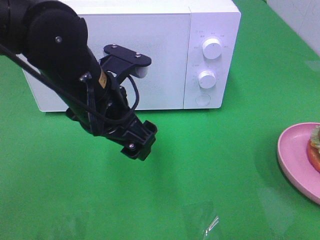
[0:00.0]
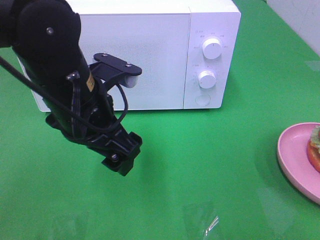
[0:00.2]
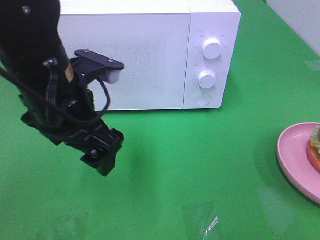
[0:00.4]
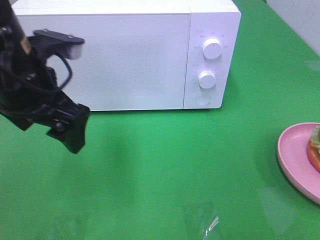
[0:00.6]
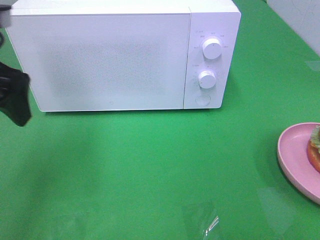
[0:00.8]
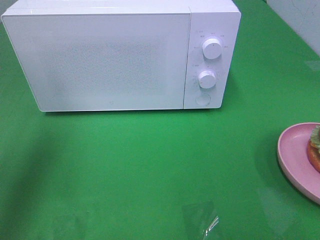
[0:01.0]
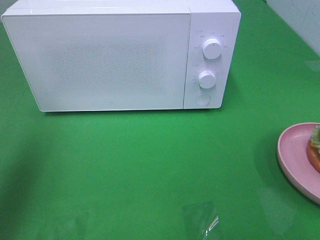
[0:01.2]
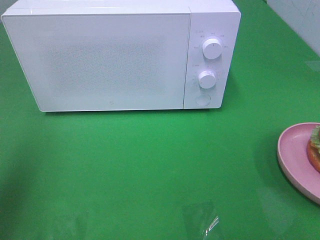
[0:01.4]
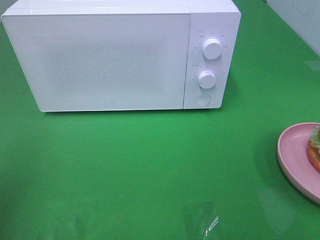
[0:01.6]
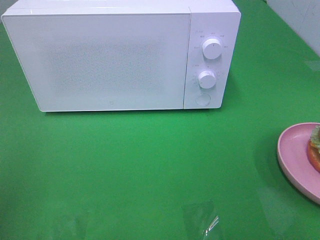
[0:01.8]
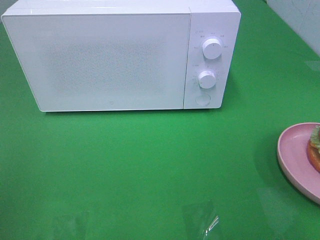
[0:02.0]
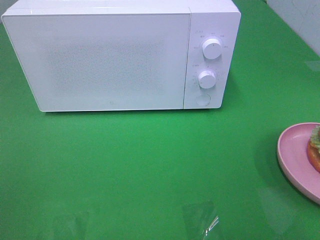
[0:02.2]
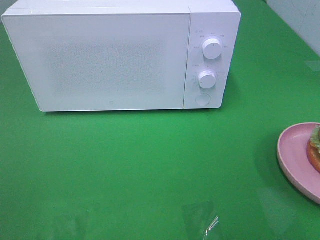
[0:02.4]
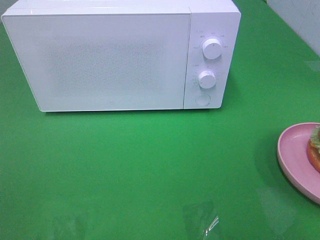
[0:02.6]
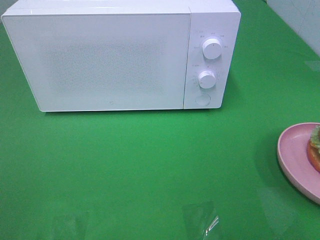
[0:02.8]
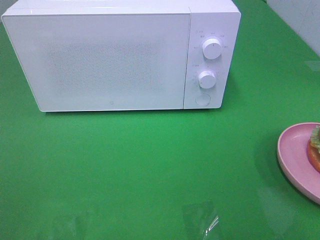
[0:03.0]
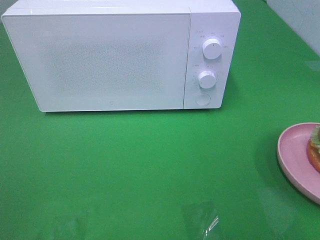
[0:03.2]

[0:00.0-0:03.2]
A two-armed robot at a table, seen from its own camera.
Task of the whole recording: Heat the burger.
0:00.0 to 0:01.6: The left gripper travels to the left and backward by roughly 25 cm.

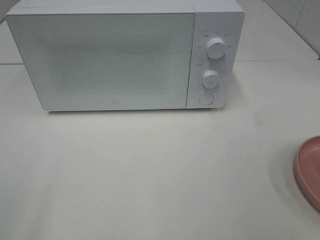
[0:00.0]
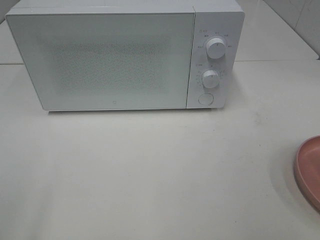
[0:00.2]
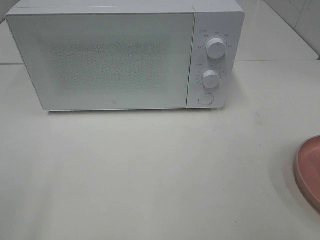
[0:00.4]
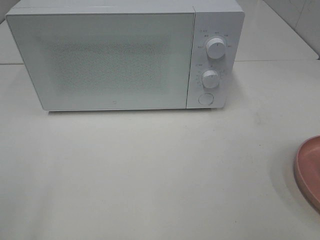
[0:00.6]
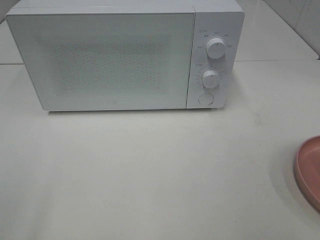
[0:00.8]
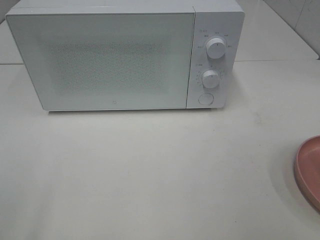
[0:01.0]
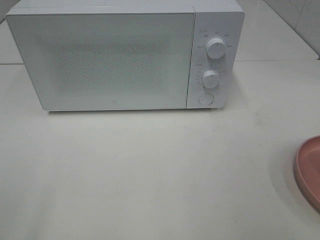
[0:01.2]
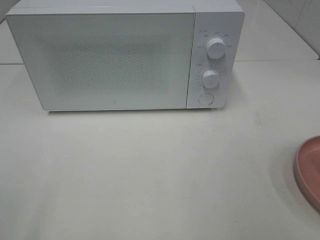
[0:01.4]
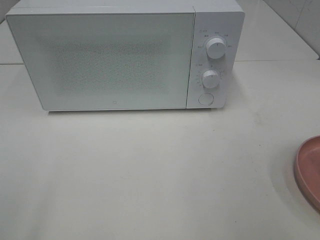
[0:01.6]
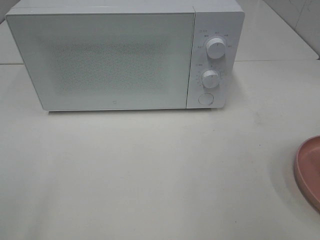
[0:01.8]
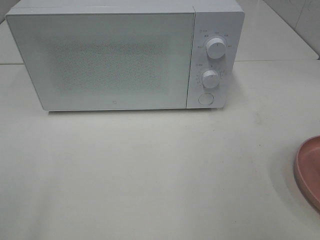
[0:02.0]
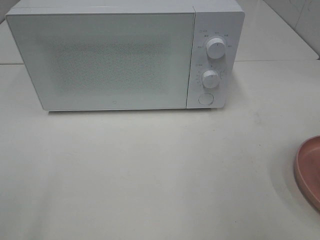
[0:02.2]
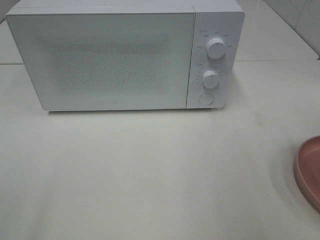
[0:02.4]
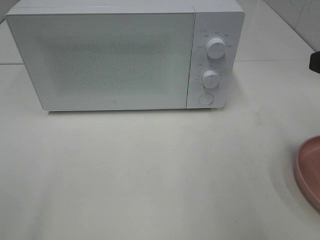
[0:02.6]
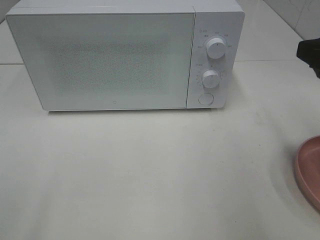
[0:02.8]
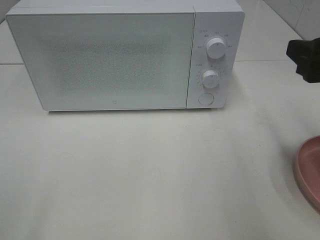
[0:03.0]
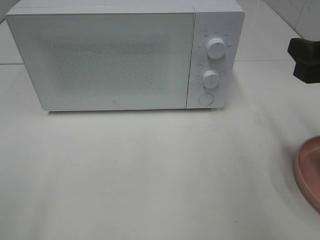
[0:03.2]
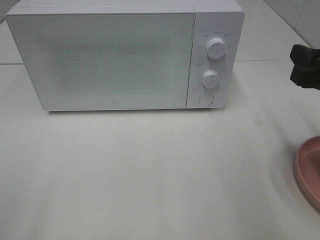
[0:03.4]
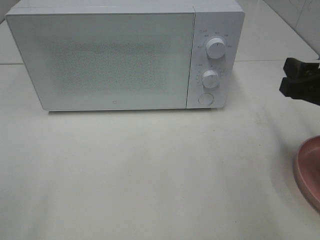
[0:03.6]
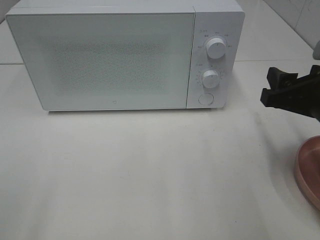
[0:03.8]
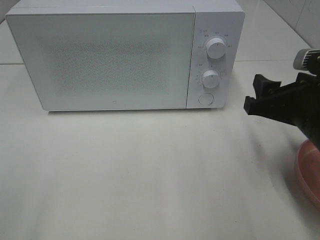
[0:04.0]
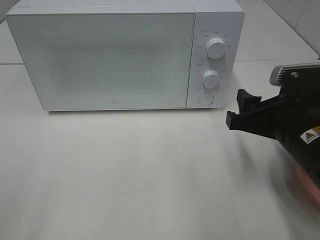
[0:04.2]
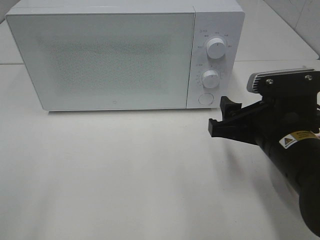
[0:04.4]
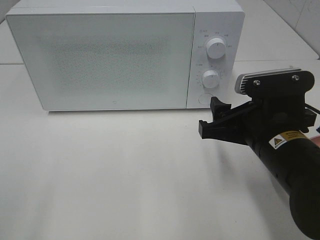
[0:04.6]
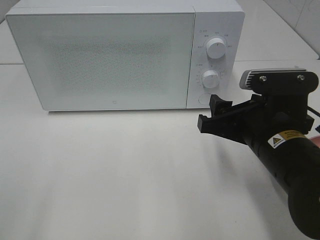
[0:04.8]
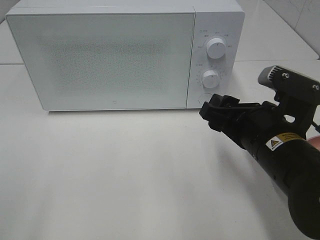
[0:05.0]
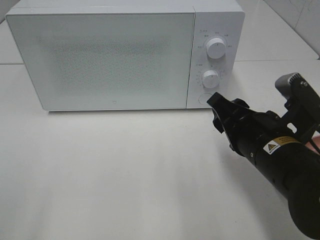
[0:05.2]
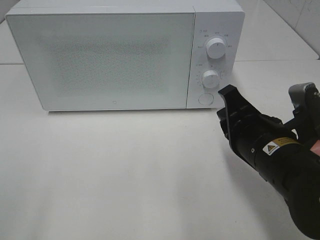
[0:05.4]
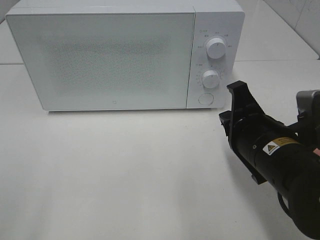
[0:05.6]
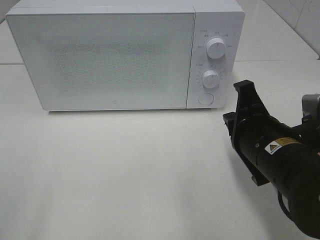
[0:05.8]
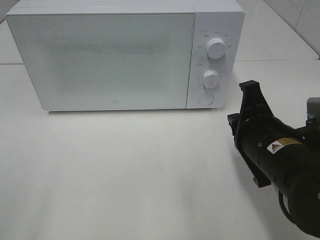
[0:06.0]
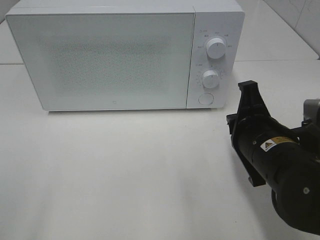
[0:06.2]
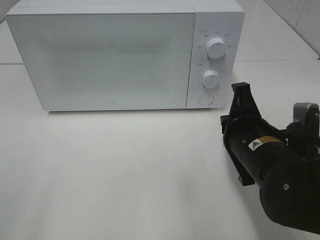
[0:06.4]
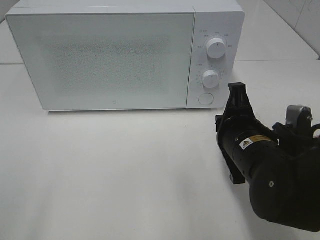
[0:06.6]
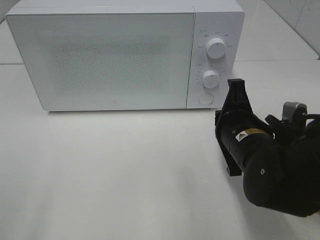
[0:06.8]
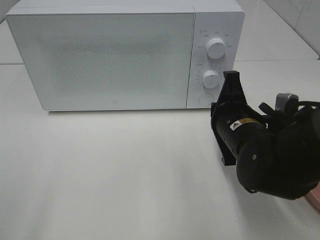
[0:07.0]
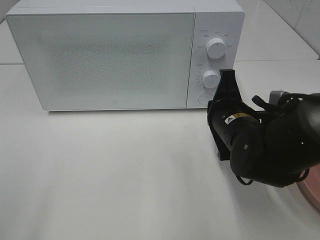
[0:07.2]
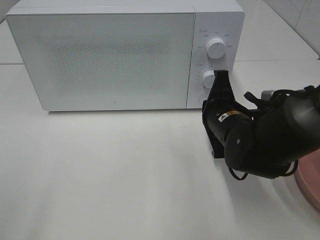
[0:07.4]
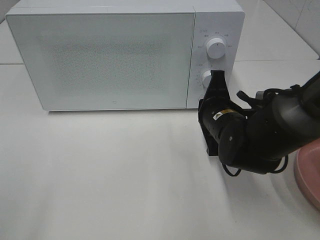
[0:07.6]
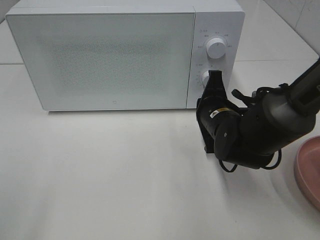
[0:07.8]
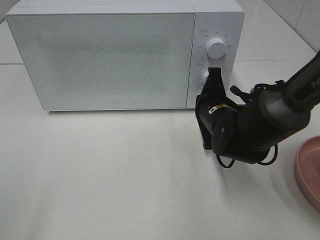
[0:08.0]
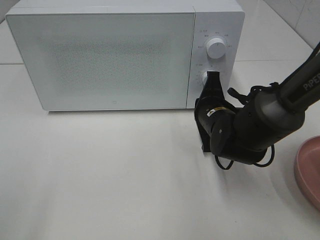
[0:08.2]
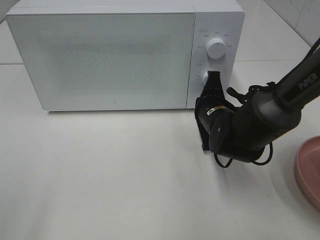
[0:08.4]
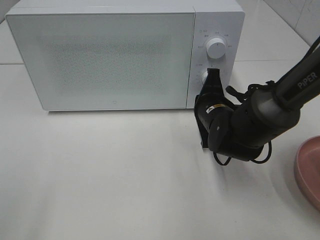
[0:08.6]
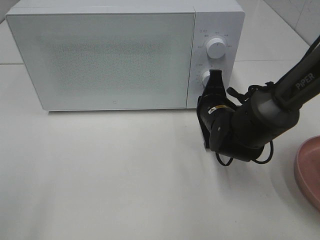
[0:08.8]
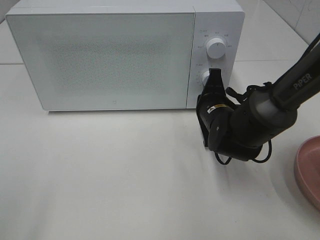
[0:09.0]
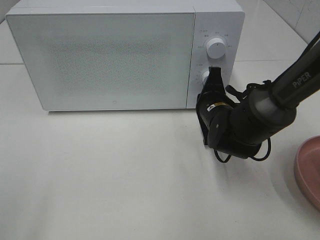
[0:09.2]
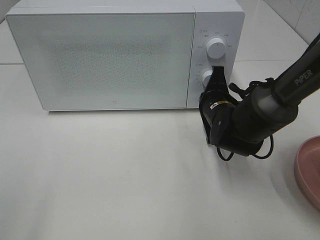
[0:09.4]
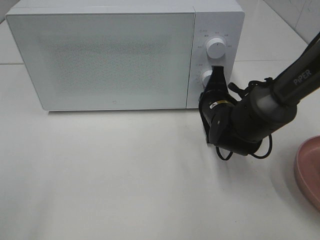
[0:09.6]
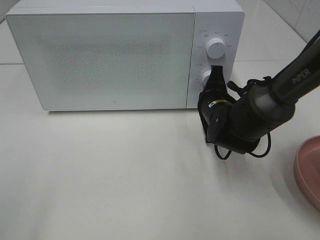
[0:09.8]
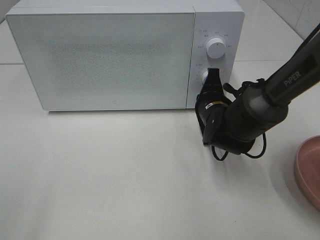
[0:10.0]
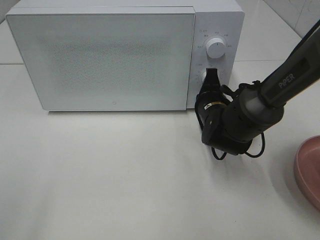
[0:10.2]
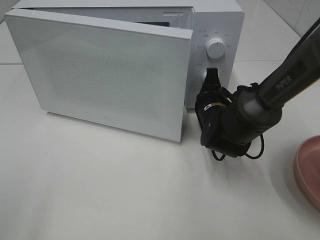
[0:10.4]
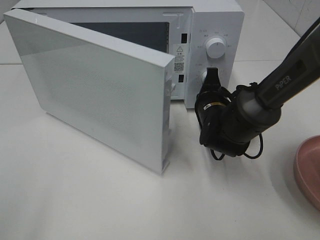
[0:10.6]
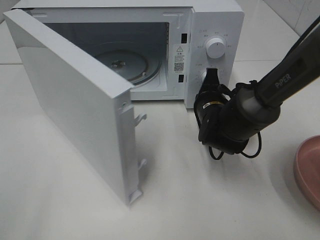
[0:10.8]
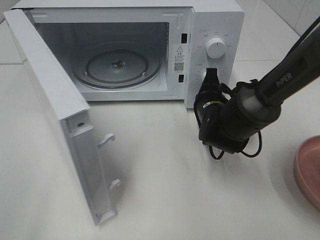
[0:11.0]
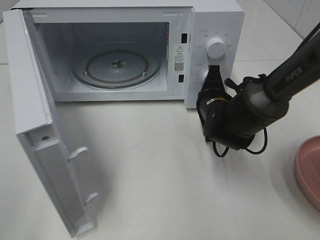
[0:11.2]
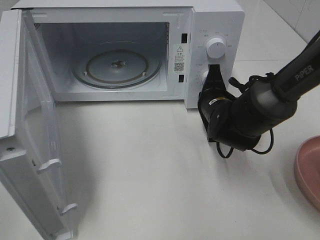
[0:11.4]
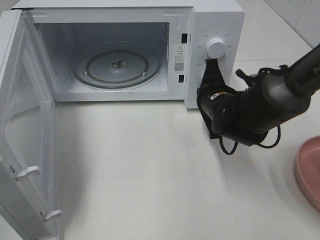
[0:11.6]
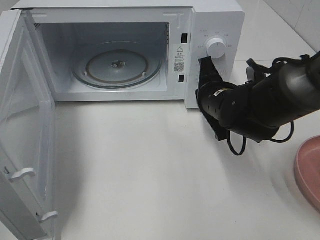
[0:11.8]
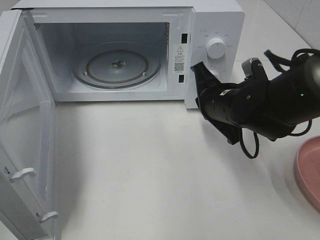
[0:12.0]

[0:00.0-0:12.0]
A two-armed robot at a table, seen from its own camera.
Task of the whole recording: Heat the burger.
Step, 0:00.0 to 0:11.6: Right hand: press the switch.
0:01.6 to 0:03.0: The right gripper moves forward, roughly 15 cm.
0:03.0 to 0:04.4: The right gripper travels downward and to the left by approximately 15 cm.
0:04.4 to 0:06.0: The right gripper closes.
0:06.0 to 0:07.6: The right gripper goes roughly 10 cm forward.
0:07.6 to 0:09.0: The grippers make only small movements.
0:09.0 to 0:10.4: The grippers stay close to where they were, moving slightly.
0:10.4 to 0:12.0: The right gripper travels upward by roughly 5 cm.

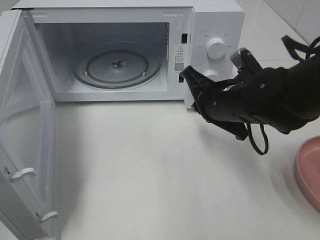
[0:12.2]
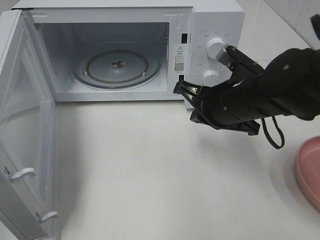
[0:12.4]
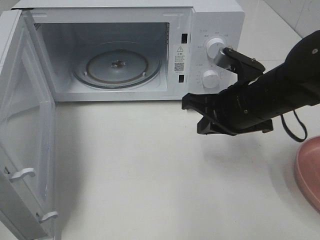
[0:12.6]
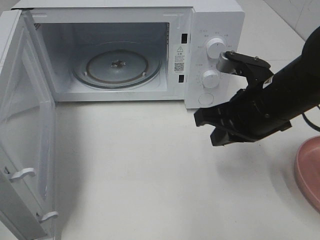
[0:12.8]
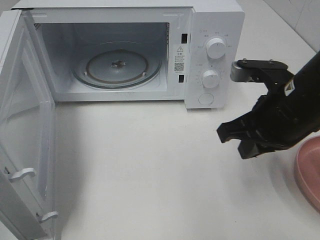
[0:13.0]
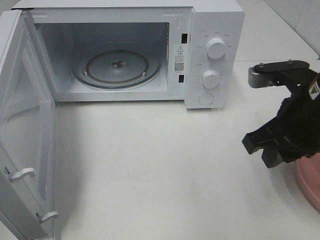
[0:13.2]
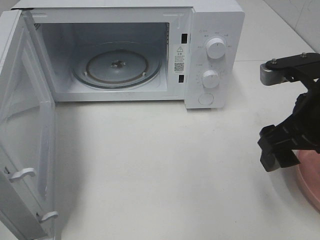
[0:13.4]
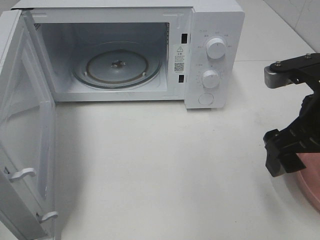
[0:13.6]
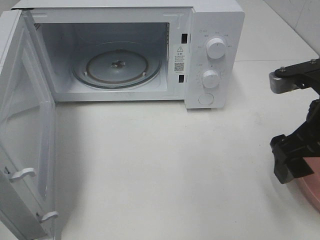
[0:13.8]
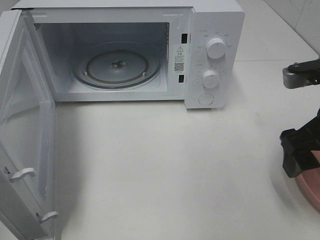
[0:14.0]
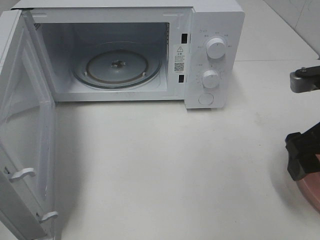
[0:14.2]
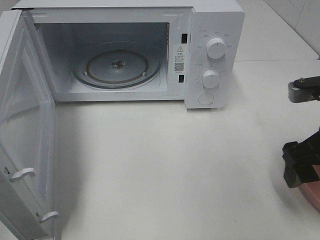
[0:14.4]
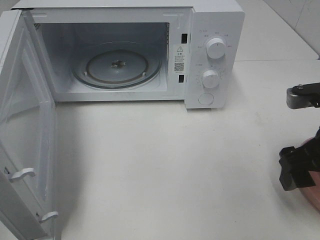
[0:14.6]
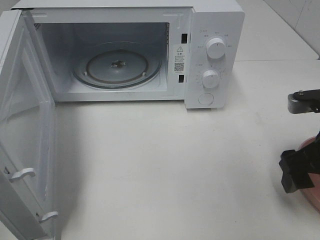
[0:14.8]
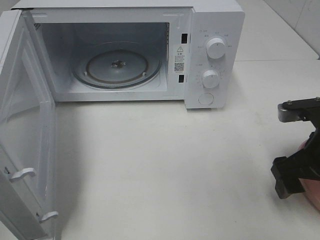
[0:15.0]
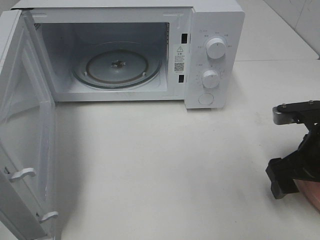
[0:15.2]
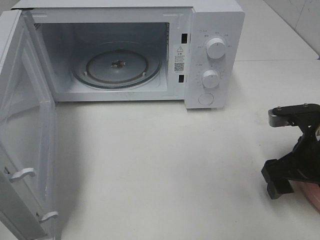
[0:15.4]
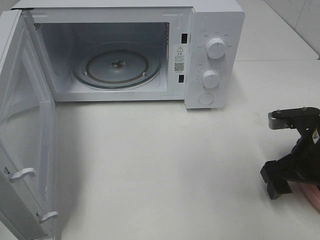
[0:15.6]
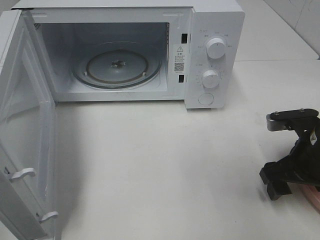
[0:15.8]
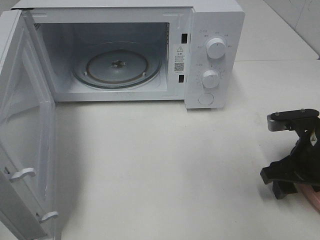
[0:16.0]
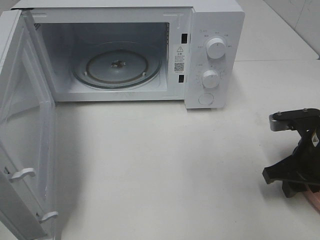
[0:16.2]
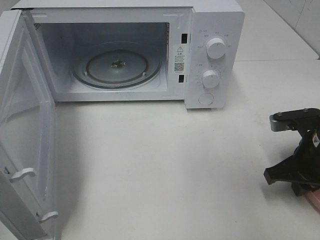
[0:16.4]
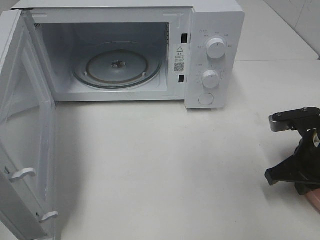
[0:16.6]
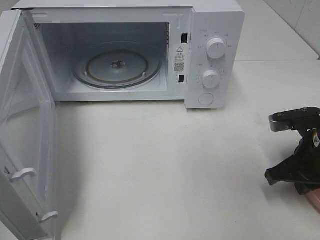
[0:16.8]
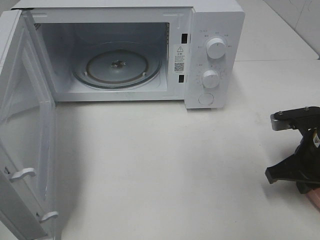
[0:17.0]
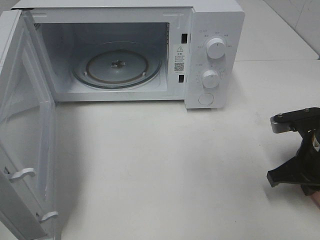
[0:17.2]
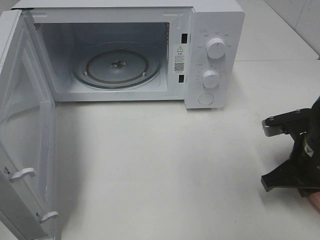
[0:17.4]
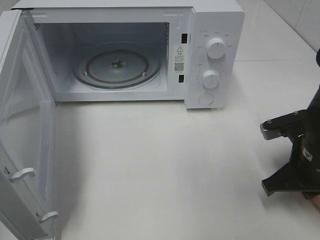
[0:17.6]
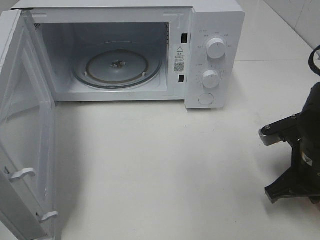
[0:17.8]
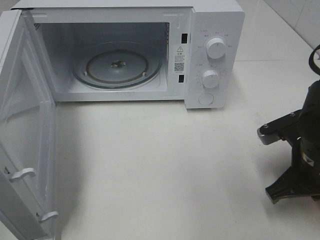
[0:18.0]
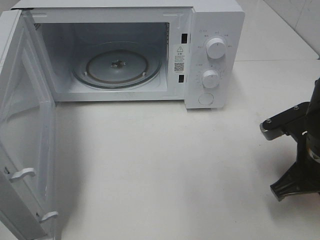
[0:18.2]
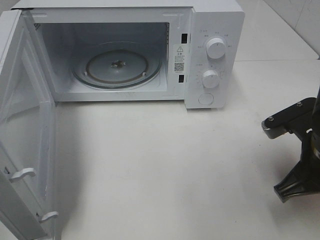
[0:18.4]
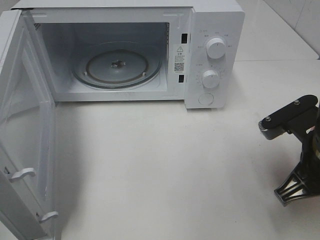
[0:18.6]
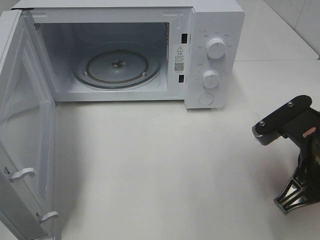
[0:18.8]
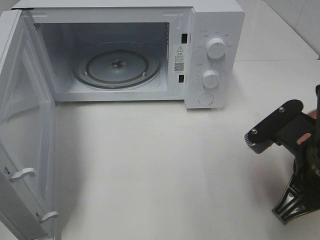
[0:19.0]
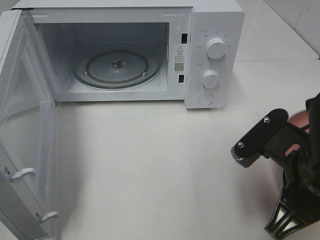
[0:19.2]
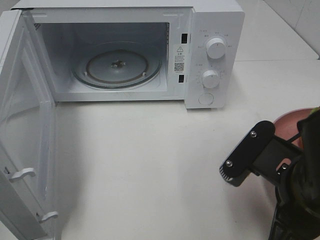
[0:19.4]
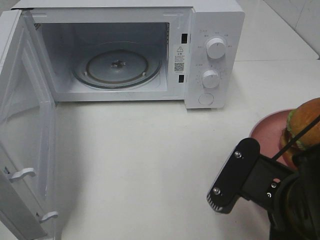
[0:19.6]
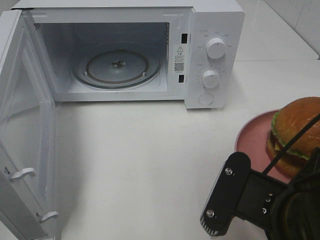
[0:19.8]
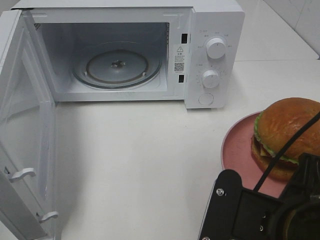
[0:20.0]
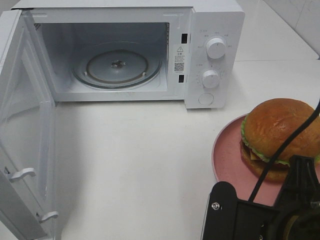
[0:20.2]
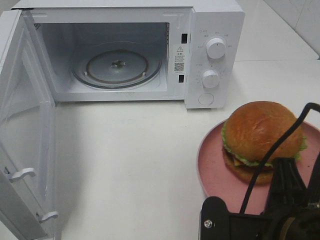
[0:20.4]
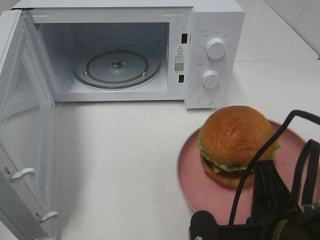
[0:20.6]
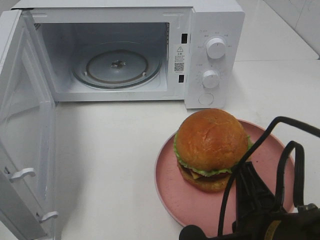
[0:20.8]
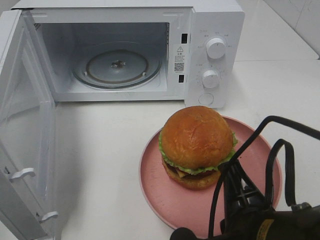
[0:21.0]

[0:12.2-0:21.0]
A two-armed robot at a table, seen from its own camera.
Task of the whole recording: Heat the burger.
Step, 0:12.2 to 0:16.6: Right hand: grab the plate with the hamburger.
0:12.2 to 0:13.6: The right gripper goes about 15 cm backward, upward and to the right, and opens its fingers.
0:13.6 to 0:15.2: The right gripper goes roughly 10 cm downward.
0:15.2 to 0:16.6: The right gripper closes its fingers.
0:16.6 to 0:18.0: There are only small adjustments of the grippers.
0:18.0 to 0:19.6: The right gripper is displaced backward, to the left and upward by approximately 15 cm.
0:19.6 to 0:21.0: The right gripper ends up some 5 cm from where it was.
